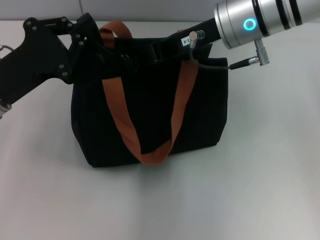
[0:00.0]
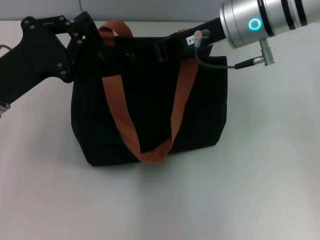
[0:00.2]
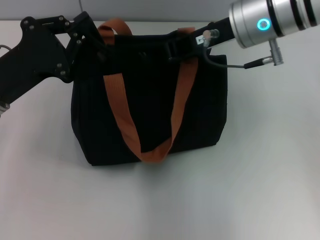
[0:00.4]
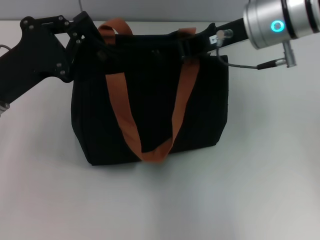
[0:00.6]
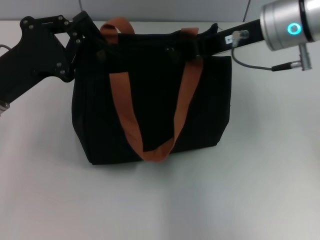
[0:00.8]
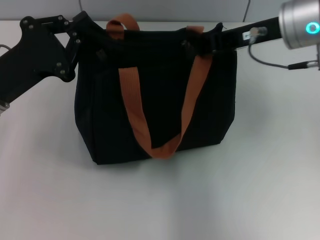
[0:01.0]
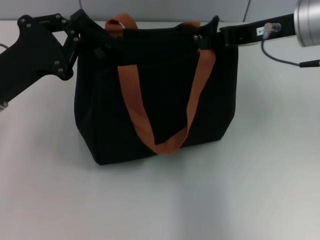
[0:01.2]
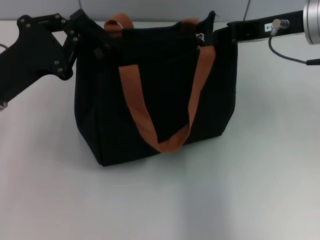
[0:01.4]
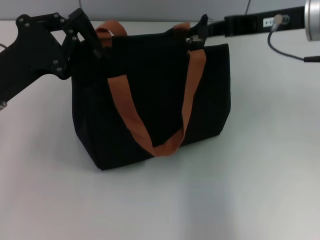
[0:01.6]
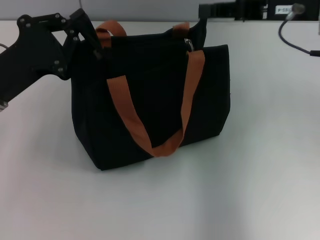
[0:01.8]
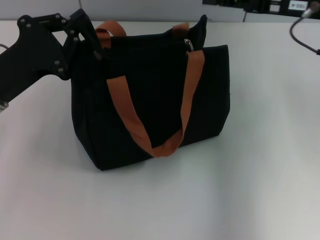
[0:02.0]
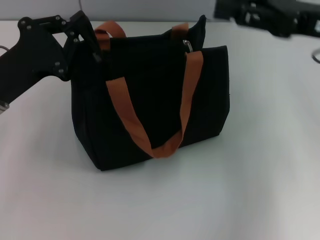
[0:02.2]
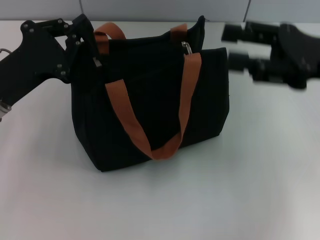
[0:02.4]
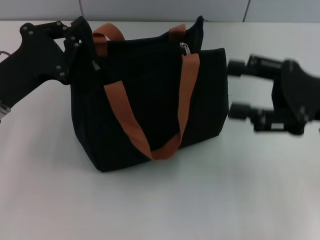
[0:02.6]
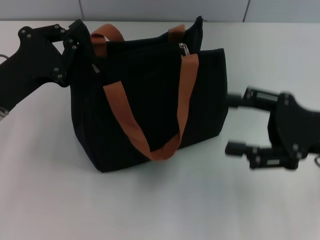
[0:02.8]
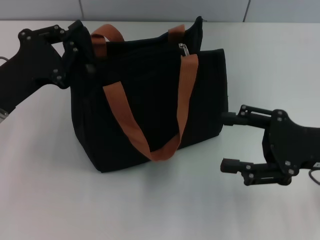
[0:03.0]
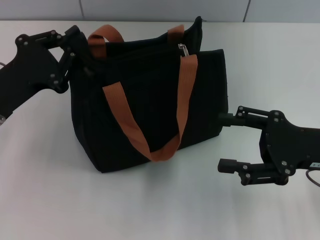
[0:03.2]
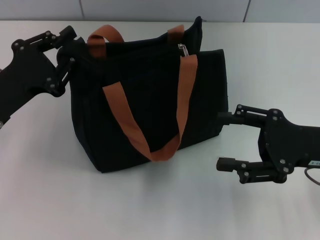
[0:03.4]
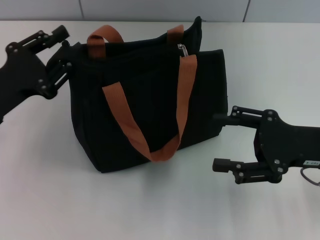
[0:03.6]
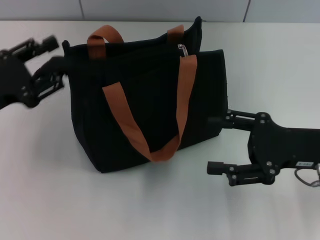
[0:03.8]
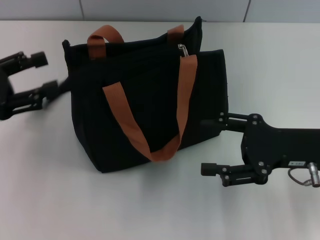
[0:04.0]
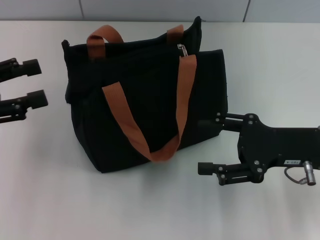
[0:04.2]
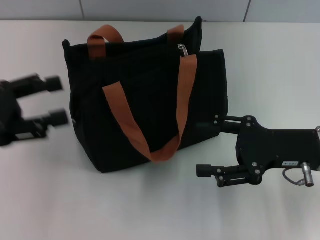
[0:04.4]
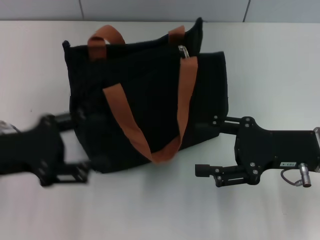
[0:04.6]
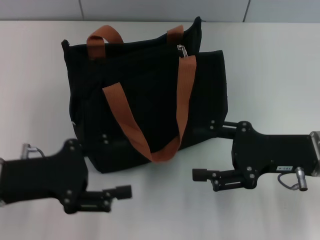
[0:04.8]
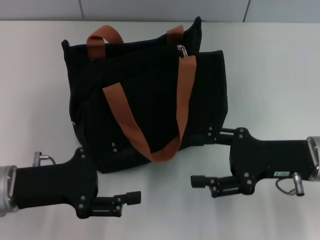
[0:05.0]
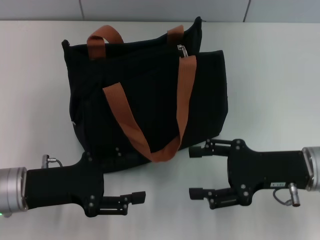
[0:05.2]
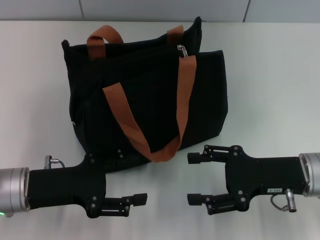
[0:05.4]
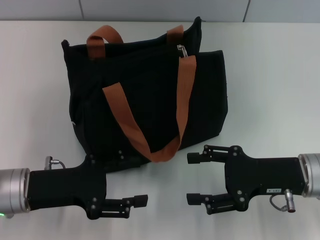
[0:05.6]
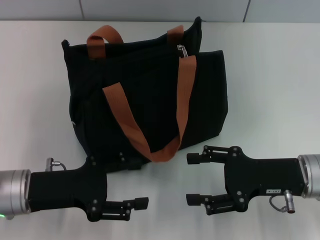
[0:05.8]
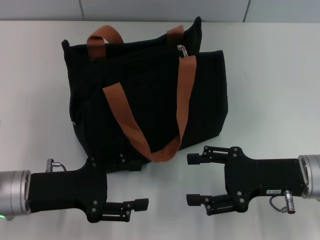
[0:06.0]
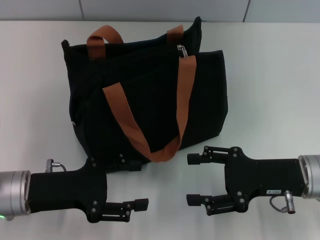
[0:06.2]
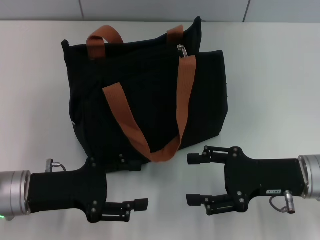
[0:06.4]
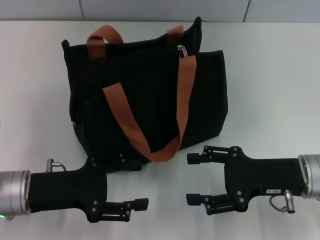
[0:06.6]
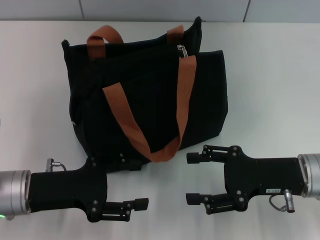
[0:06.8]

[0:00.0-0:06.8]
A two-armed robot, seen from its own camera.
Step, 0:01.8 to 0:04.2: Grab the zipper with your left hand.
0:00.0 to 0:01.4: The right gripper travels to the right by approximately 10 cm.
0:01.4 to 0:02.8: The right gripper shifts approximately 15 cm backward, downward and to the right, and opens up.
0:02.8 to 0:04.0: The left gripper shifts about 5 cm to the left, and opens its fingers.
0:04.0 to 0:05.4: The left gripper moves to the right and downward, approximately 15 cm.
0:05.4 to 0:06.8: Both grippers stay put.

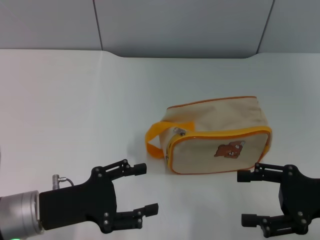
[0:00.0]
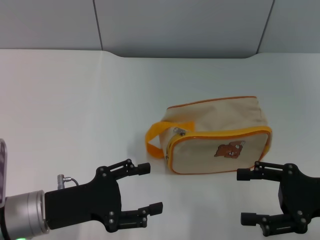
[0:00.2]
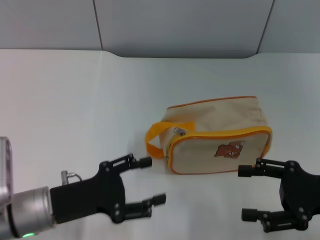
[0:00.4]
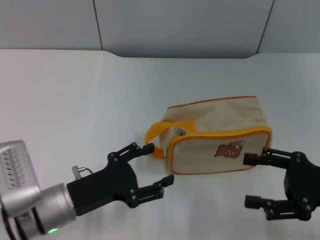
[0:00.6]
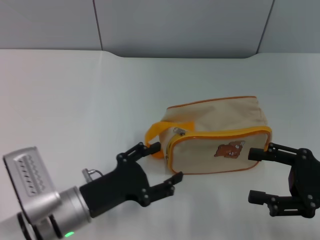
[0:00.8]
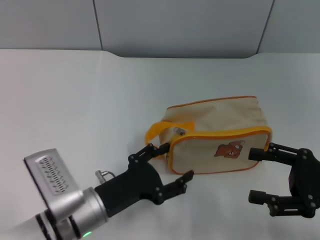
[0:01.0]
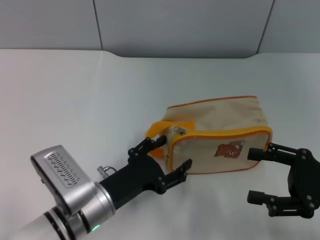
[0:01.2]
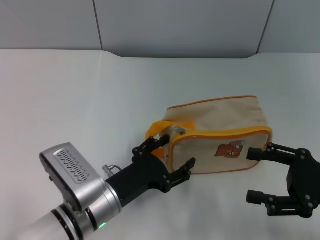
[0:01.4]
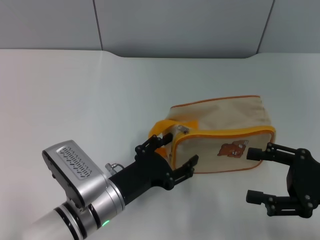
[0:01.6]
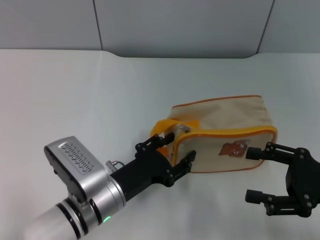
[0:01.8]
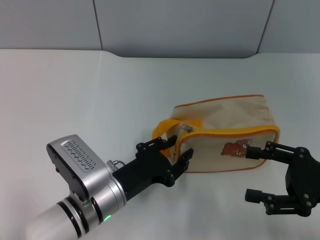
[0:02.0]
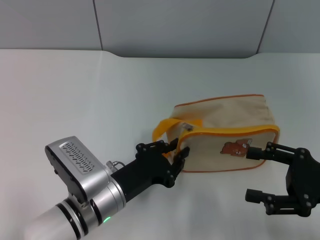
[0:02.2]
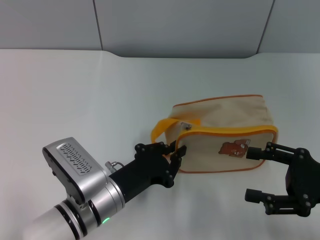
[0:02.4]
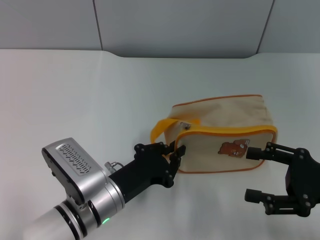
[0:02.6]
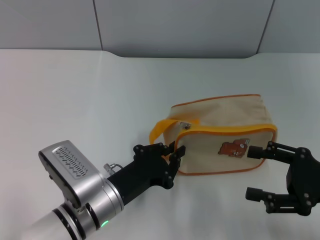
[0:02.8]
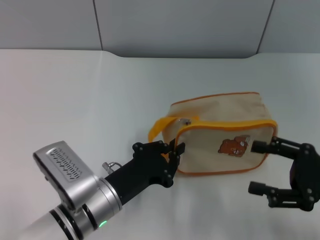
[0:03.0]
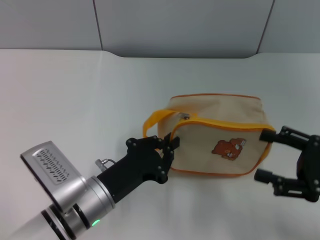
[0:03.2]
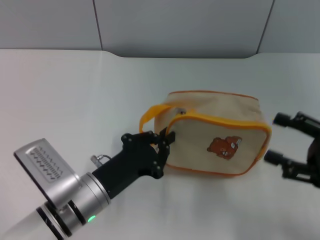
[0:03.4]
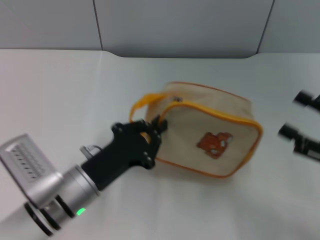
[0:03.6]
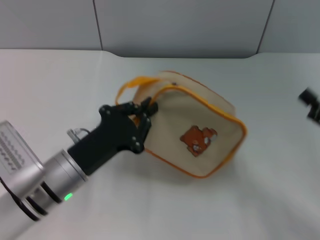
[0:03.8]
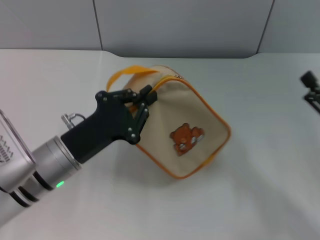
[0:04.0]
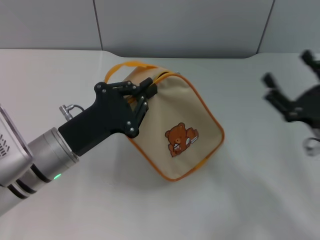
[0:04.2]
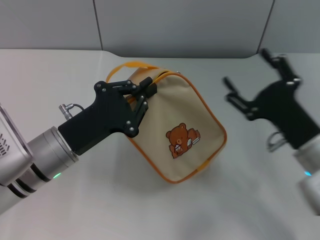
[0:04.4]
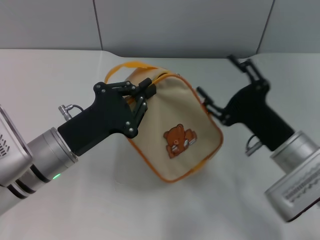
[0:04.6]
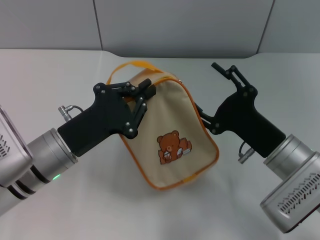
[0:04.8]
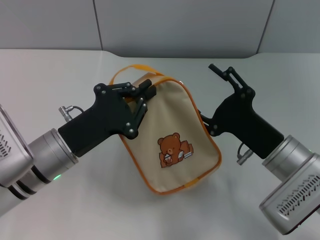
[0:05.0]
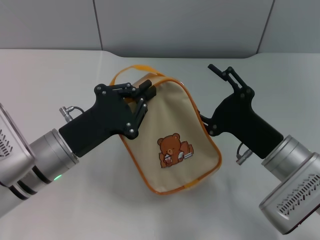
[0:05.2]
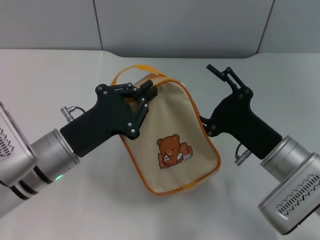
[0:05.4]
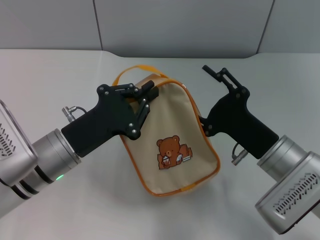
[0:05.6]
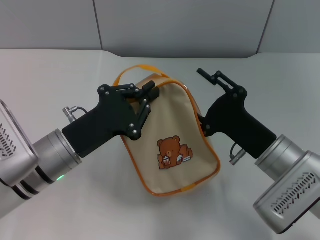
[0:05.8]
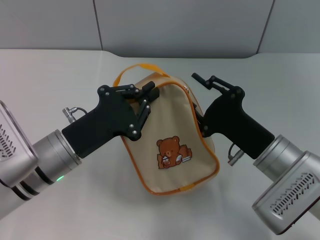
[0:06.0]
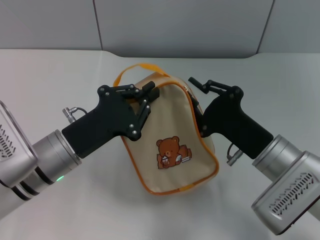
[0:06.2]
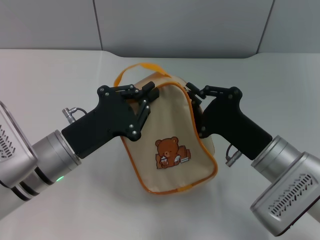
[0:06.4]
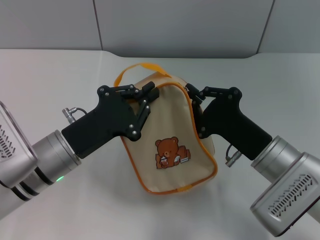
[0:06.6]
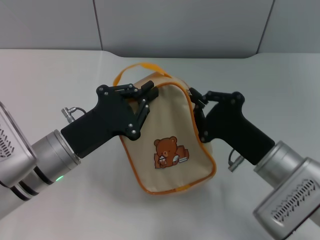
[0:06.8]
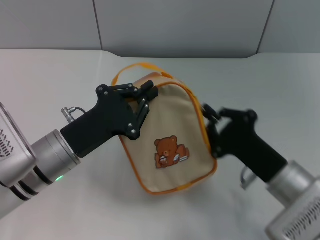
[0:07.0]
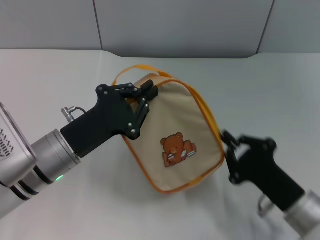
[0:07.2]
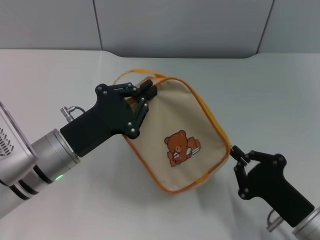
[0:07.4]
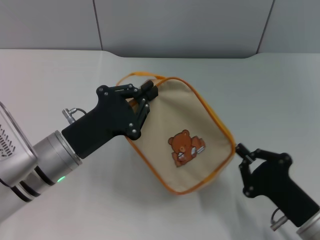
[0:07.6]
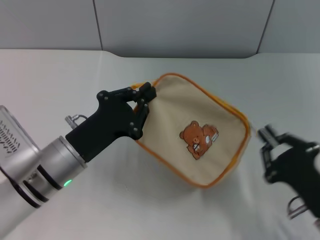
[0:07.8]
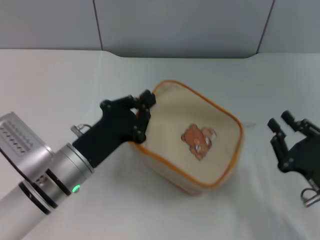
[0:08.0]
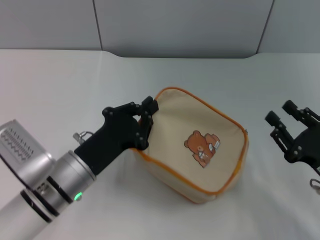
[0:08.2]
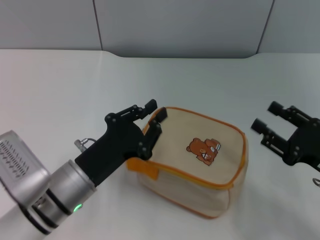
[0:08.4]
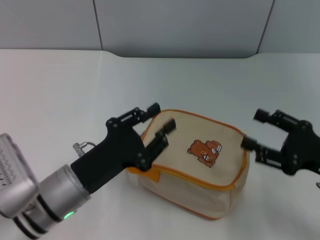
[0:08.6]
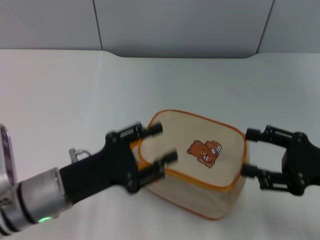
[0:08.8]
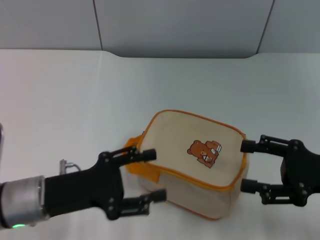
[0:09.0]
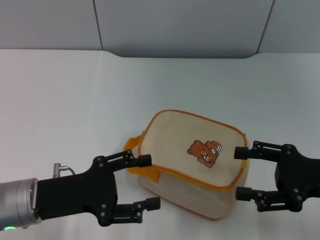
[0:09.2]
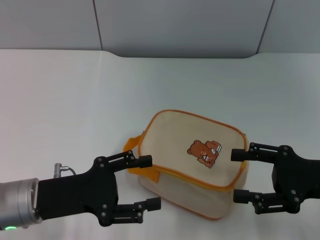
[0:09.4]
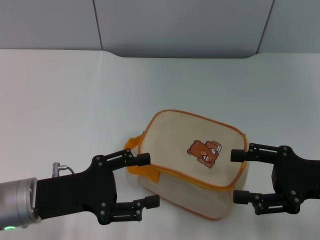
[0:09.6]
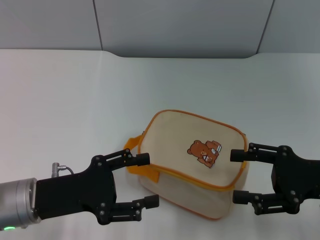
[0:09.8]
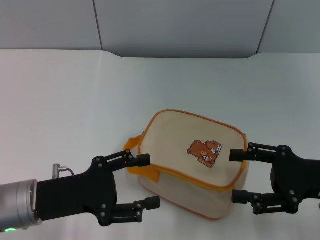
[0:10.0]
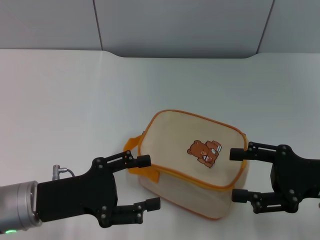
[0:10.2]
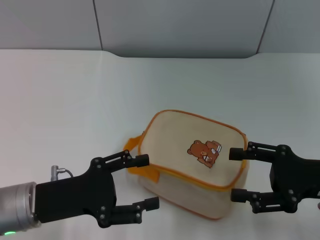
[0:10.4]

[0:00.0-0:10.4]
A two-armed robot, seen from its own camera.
Step, 0:00.0 to 0:04.0: Pick up the bag with left gripper.
Step, 0:04.4 to 0:07.8: Unzip the zipper of bag with right gripper.
Step, 0:08.0 to 0:08.4: Place the bag on the table with left gripper.
0:00.0 to 0:01.4: The left gripper is displaced to the right by approximately 10 cm.
0:01.4 to 0:03.0: The left gripper closes up.
0:03.0 to 0:04.4: The left gripper heads upward and to the left, covering about 10 cm; the right gripper heads to the left, covering about 10 cm.
0:04.4 to 0:06.0: The right gripper closes its fingers.
0:06.0 to 0:07.4: The right gripper shifts roughly 10 cm backward and downward, and closes up.
0:07.4 to 0:09.0: The right gripper shifts about 15 cm upward, to the right and forward, and opens its fingers. The left gripper shifts by some 5 cm, and opens up.
0:09.0 to 0:10.4: Both grippers stay about where they are.

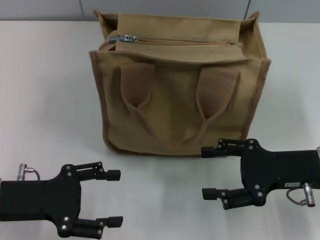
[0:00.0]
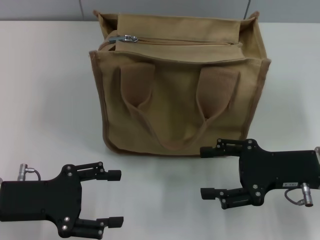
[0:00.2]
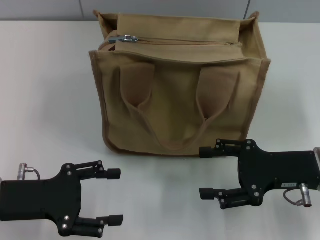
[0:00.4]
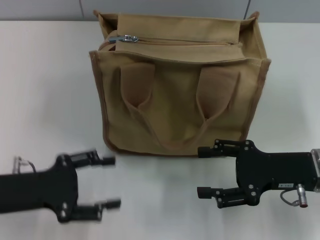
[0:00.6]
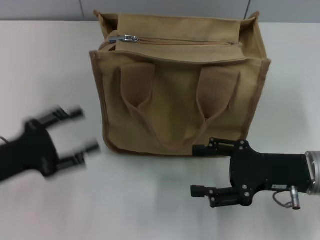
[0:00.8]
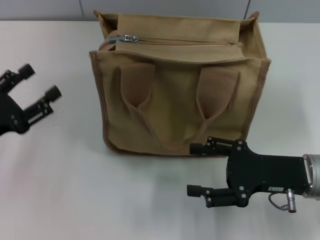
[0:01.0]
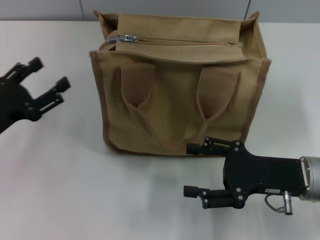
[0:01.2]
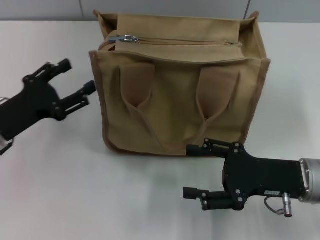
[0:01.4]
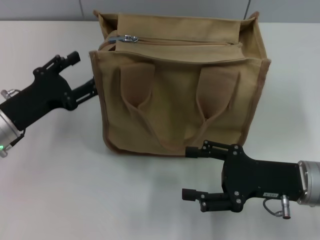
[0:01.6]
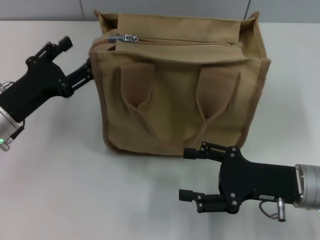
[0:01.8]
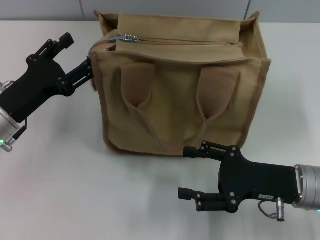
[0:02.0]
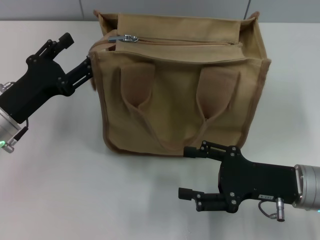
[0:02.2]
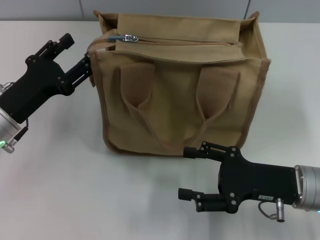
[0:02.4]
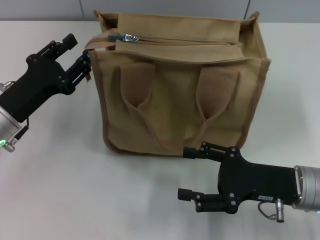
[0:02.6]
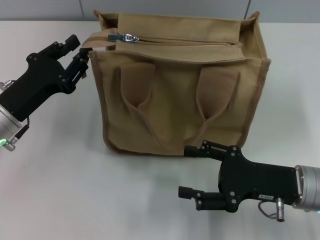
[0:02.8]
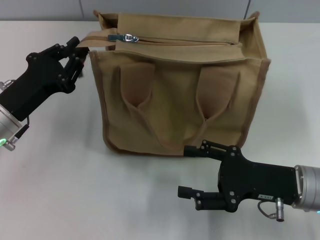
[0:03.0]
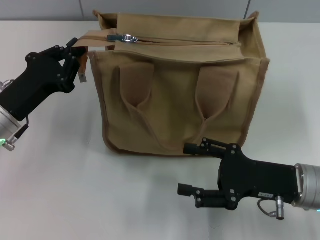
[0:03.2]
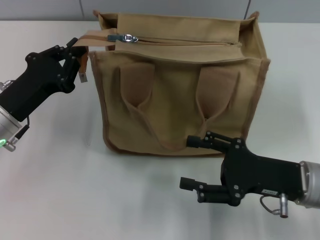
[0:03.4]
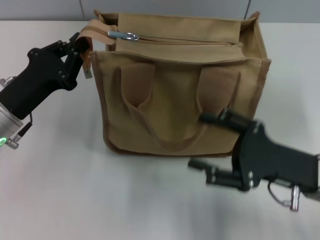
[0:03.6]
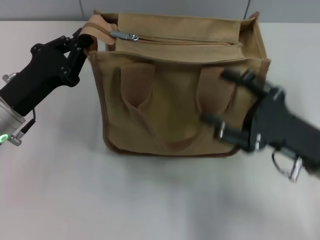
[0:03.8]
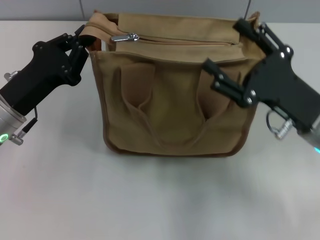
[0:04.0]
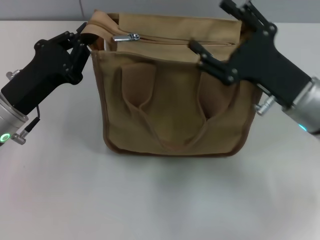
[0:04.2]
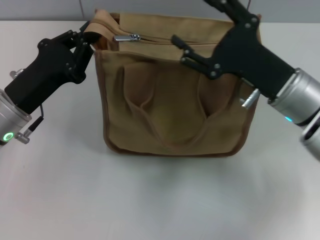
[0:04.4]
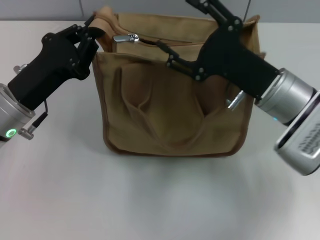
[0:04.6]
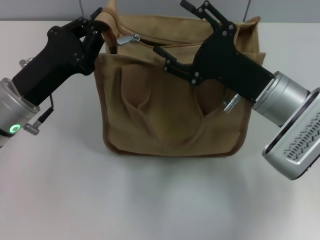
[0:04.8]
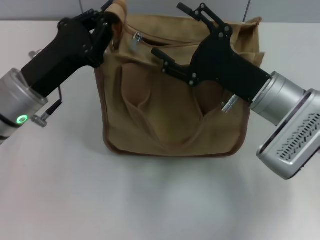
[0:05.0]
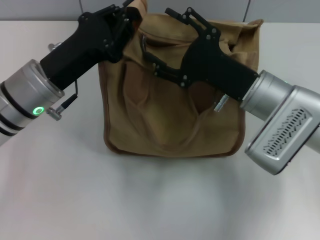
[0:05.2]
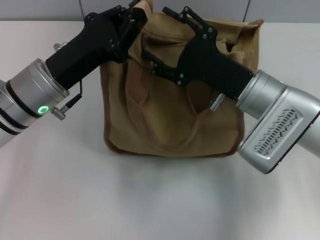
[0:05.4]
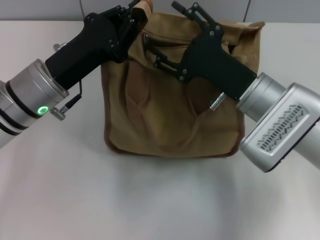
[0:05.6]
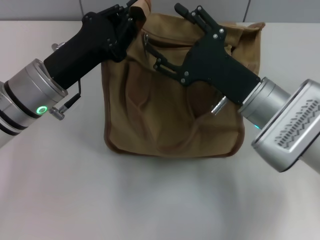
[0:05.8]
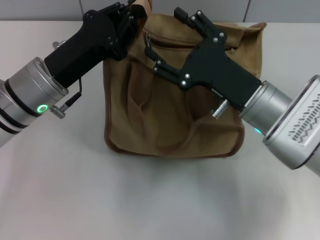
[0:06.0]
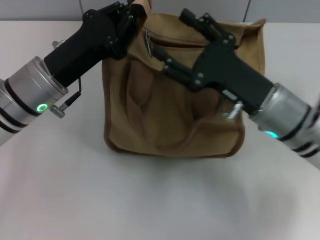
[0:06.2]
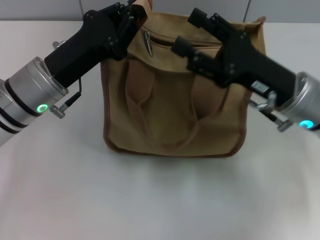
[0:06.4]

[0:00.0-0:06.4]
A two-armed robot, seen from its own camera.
0:00.0 to 0:01.6: The left gripper shifts about 5 cm forward.
0:01.6 to 0:03.2: The left gripper closes.
0:03.2 to 0:04.8: The right gripper heads forward and to the left, covering some 10 cm.
